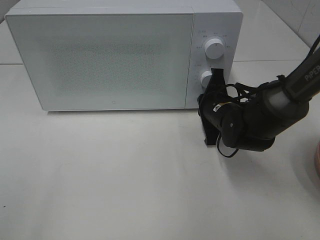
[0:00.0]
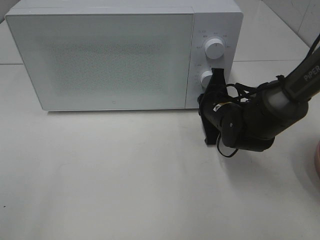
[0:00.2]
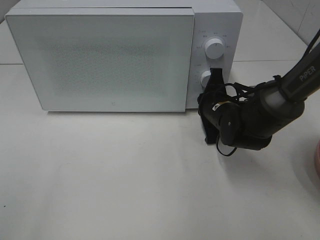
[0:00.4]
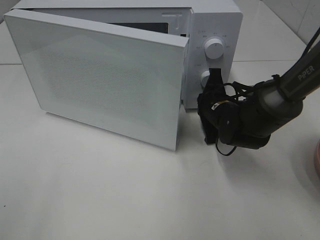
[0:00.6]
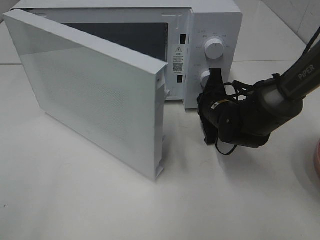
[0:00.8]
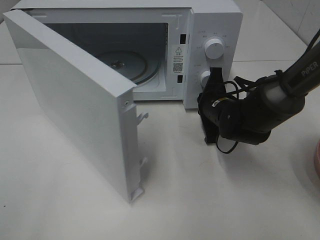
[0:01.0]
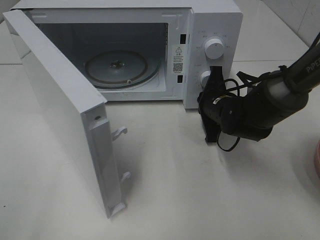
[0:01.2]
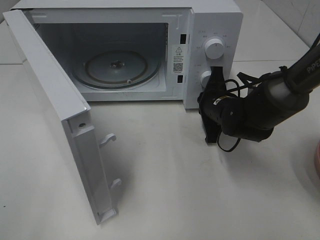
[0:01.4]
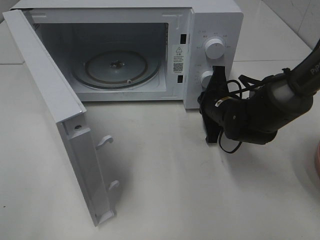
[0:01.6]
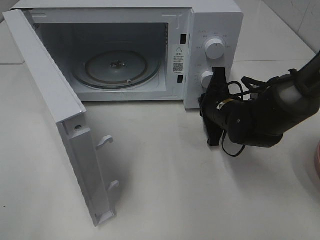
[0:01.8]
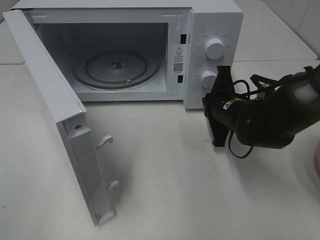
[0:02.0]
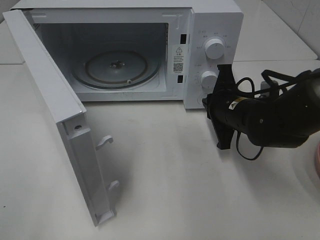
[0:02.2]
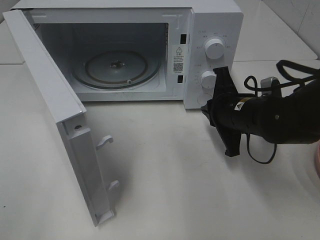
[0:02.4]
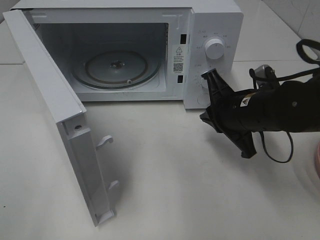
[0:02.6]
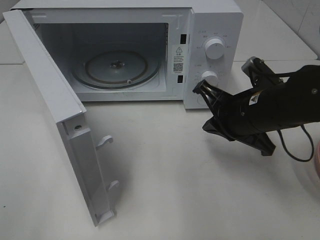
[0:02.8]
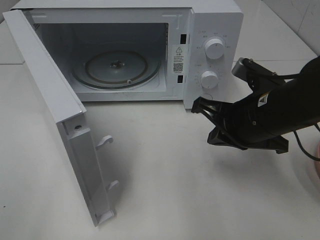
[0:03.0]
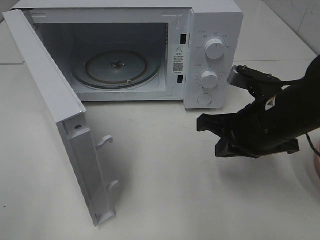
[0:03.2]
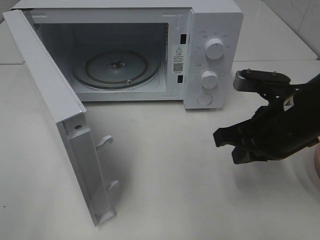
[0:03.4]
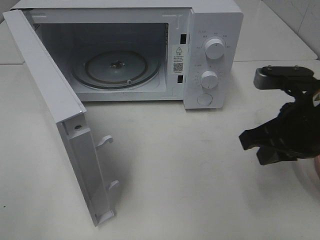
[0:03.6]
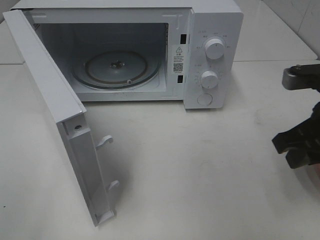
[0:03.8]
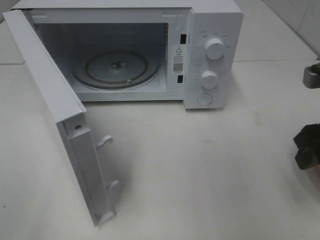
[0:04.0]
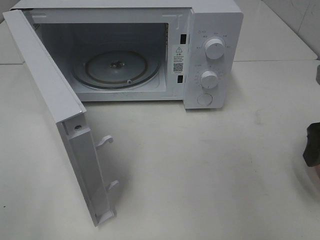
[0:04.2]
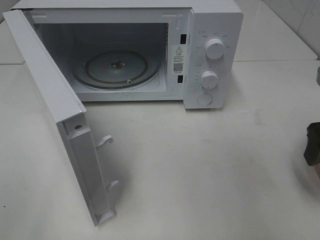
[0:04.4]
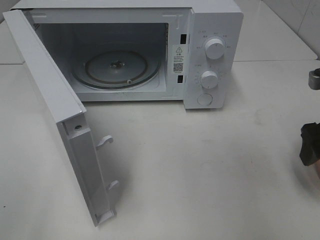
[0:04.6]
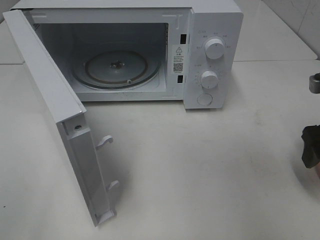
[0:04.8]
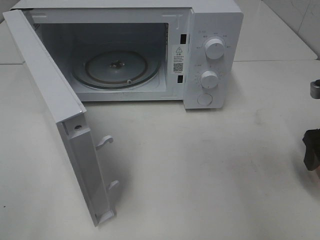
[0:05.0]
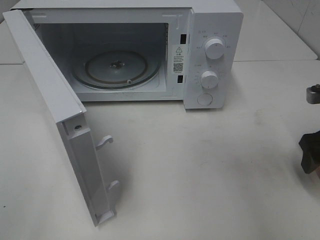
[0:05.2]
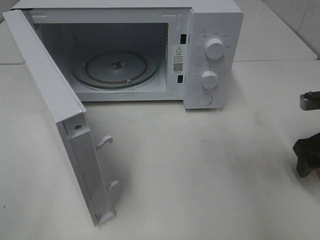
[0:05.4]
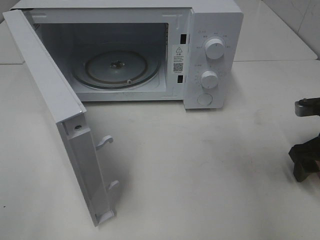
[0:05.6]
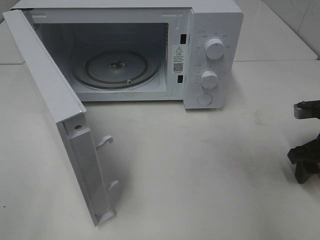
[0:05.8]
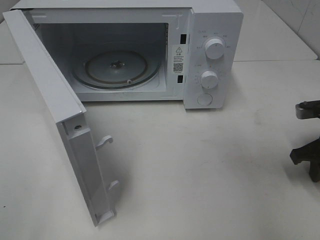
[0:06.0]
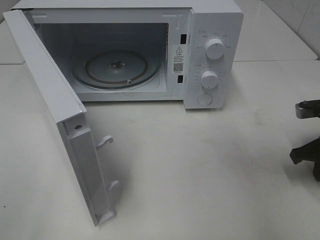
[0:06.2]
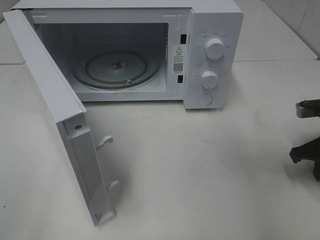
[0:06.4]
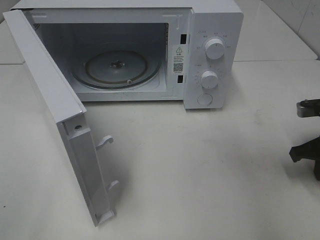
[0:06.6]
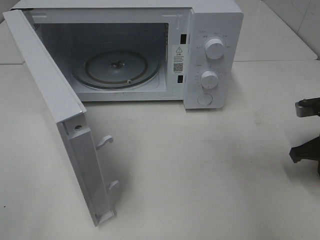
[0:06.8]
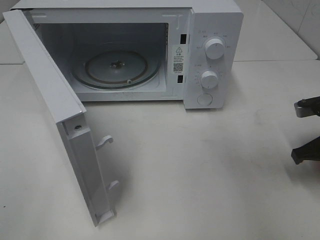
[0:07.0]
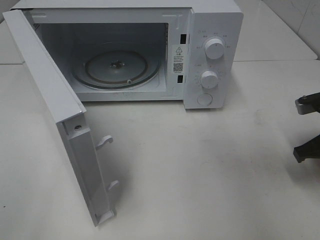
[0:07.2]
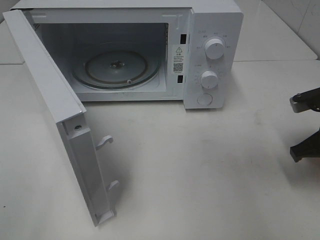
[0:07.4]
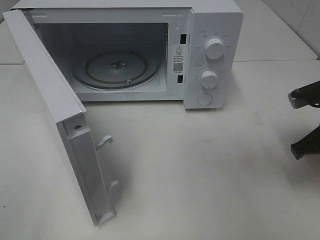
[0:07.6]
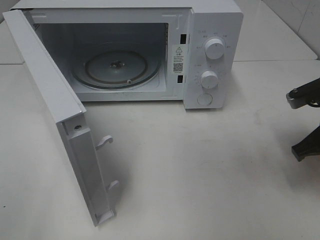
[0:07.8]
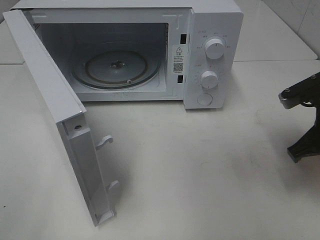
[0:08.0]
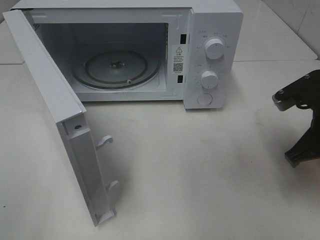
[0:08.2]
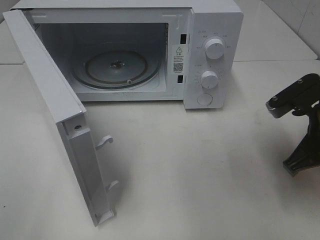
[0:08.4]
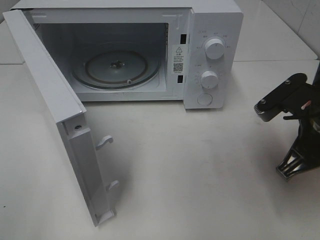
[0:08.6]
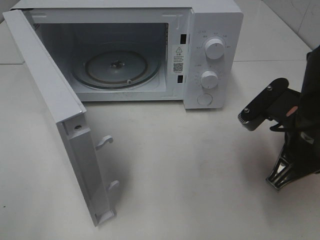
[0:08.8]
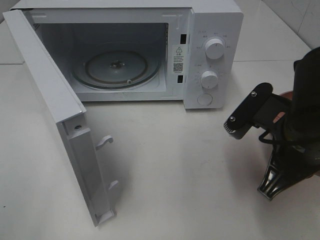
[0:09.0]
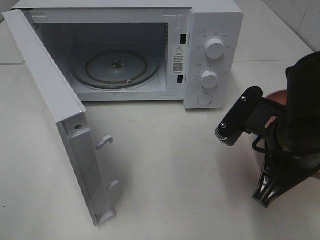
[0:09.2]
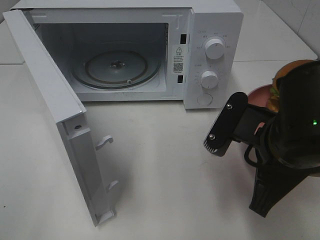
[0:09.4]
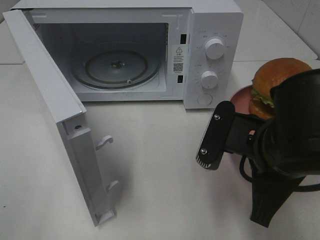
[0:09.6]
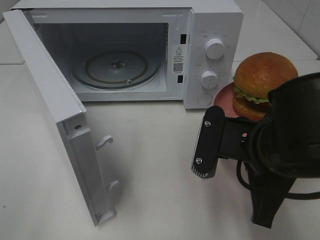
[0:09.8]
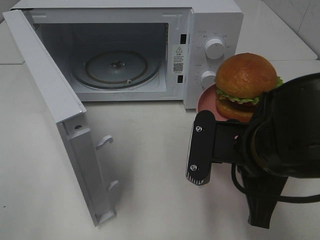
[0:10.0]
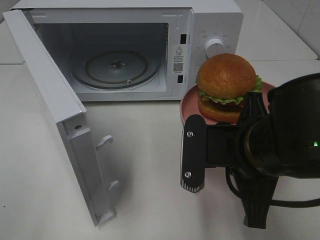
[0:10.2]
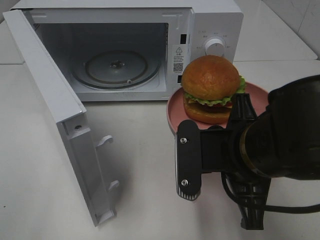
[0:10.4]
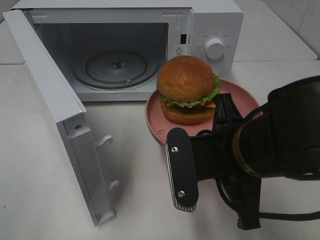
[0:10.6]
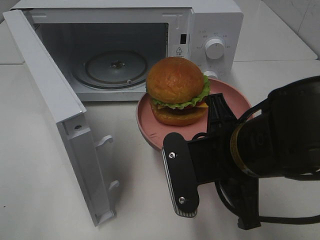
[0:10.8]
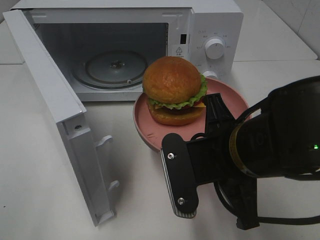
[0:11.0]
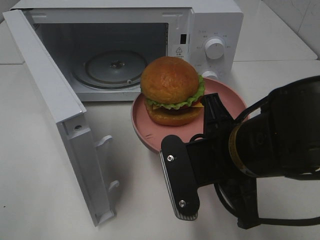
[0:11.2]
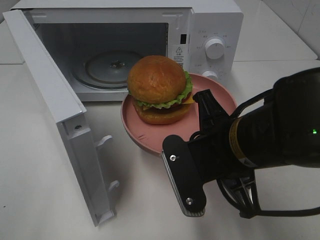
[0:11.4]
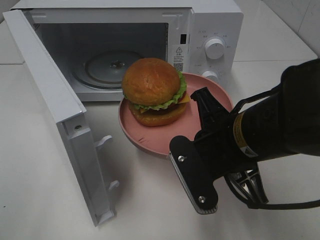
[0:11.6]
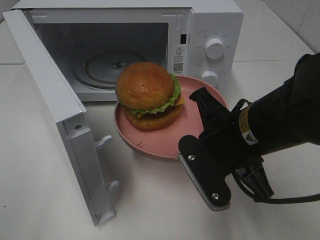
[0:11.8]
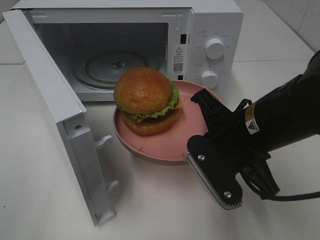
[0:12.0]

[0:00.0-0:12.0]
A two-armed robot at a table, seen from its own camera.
Task of the whole recording: Heat the burger.
Step, 0:00.0 to 0:02.0: Right hand: press the switch.
Step, 0:02.2 to 0:07.2: Right hand: grab the plate with the hamburger.
0:01.6 to 0:03.0: The right gripper shifts some 15 cm backward and upward.
0:03.0 to 0:04.4: The right gripper travels to the right by about 15 cm, and opens its fingers.
0:04.4 to 0:06.0: The right gripper is displaced downward and forward by approximately 10 cm, and closes its fingers.
0:06.0 to 0:07.6: The right gripper moves some 5 cm.
0:07.6 to 0:09.0: The right gripper moves to the left and backward, approximately 15 cm.
0:09.0 to 0:10.4: The right gripper travels to the left by roughly 5 cm.

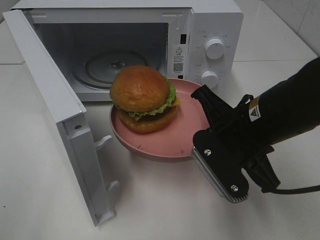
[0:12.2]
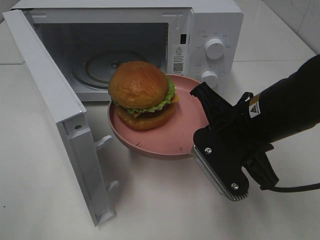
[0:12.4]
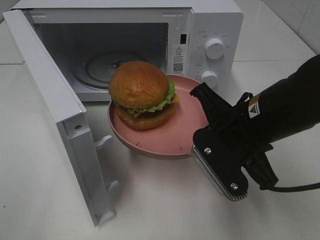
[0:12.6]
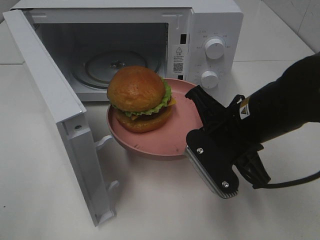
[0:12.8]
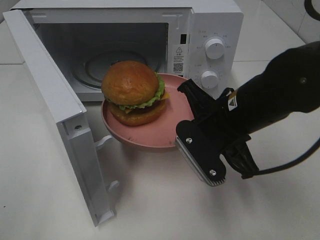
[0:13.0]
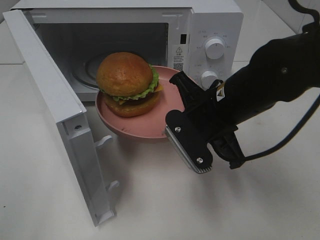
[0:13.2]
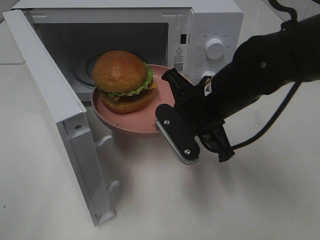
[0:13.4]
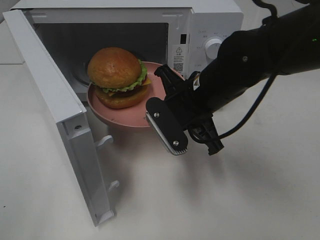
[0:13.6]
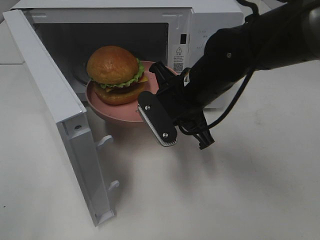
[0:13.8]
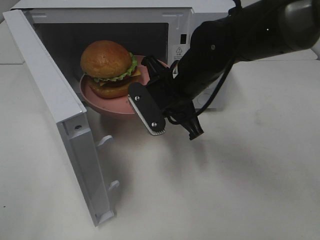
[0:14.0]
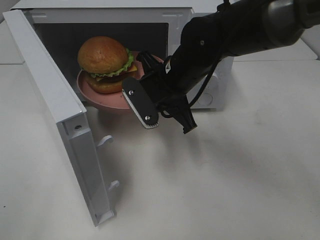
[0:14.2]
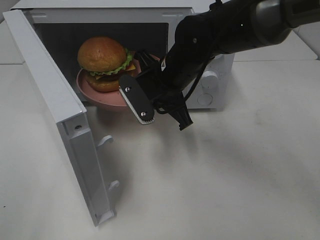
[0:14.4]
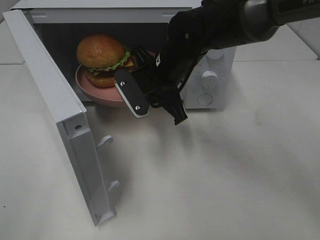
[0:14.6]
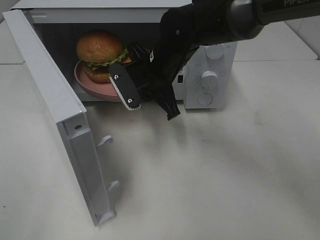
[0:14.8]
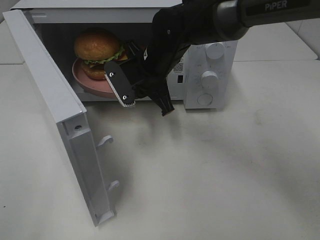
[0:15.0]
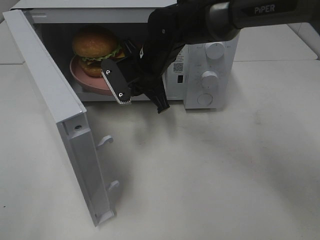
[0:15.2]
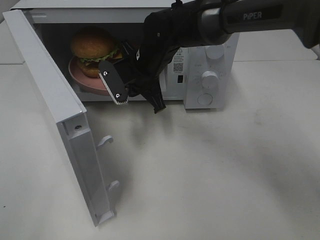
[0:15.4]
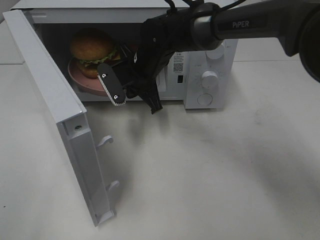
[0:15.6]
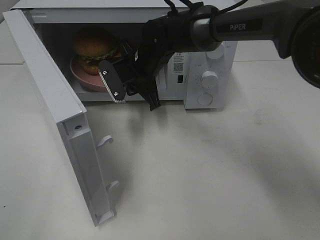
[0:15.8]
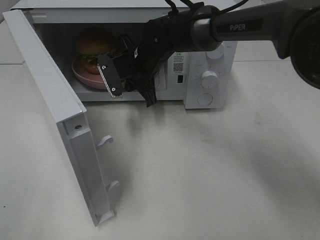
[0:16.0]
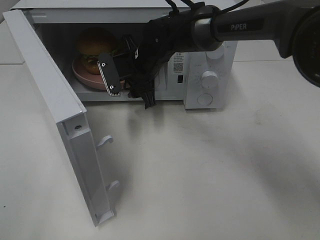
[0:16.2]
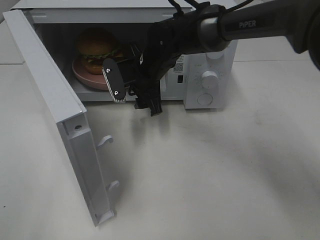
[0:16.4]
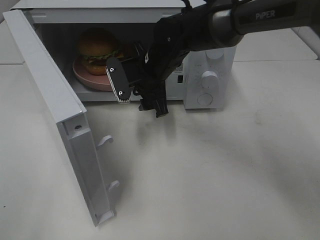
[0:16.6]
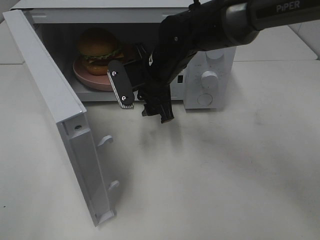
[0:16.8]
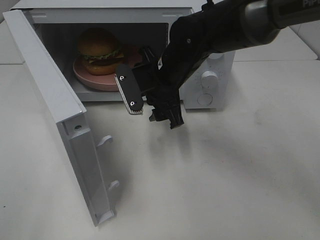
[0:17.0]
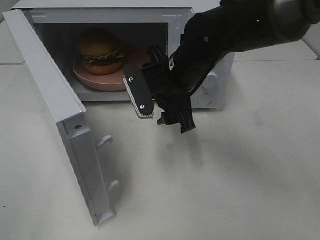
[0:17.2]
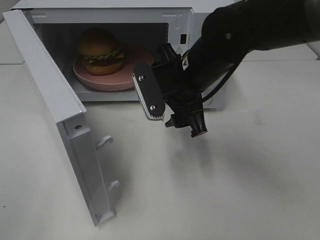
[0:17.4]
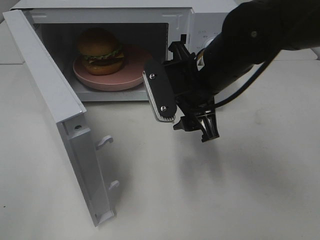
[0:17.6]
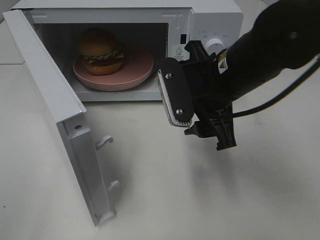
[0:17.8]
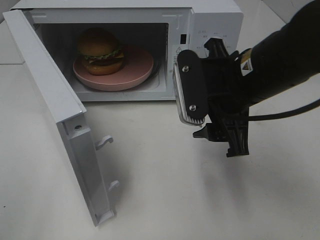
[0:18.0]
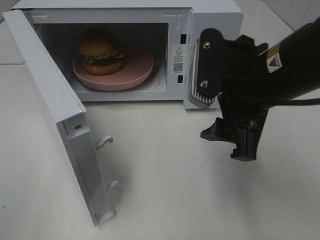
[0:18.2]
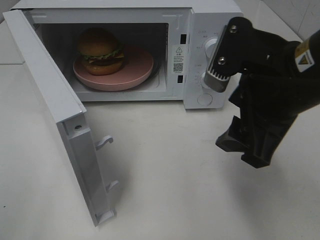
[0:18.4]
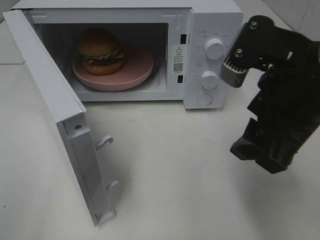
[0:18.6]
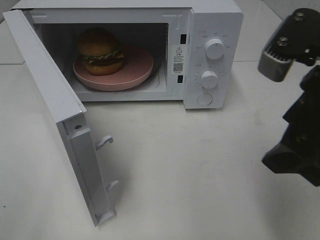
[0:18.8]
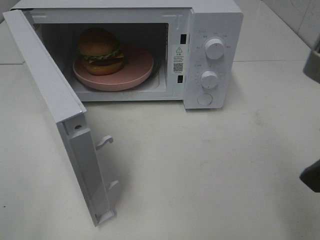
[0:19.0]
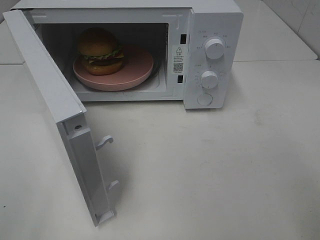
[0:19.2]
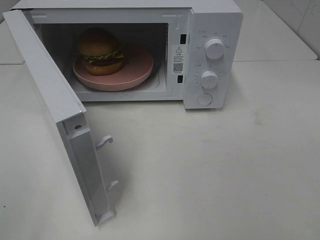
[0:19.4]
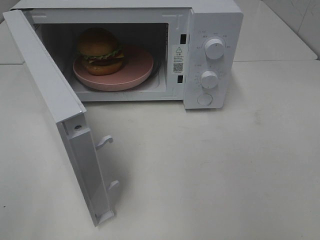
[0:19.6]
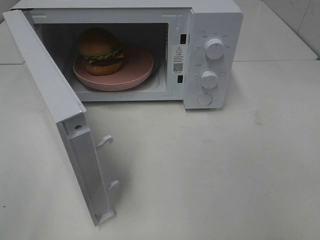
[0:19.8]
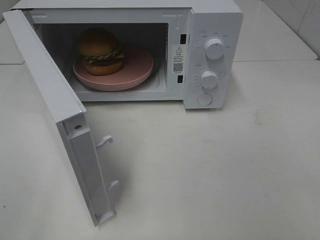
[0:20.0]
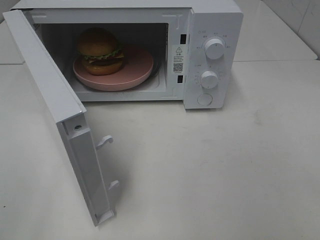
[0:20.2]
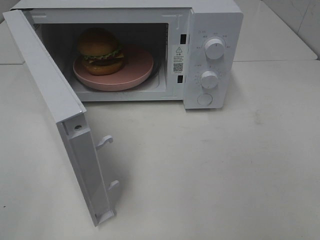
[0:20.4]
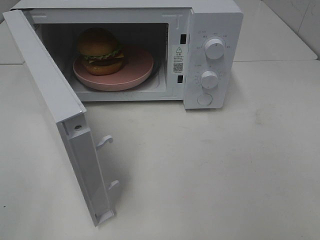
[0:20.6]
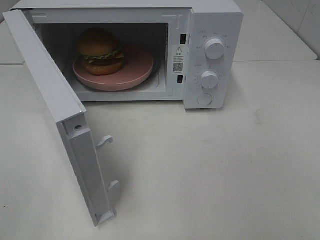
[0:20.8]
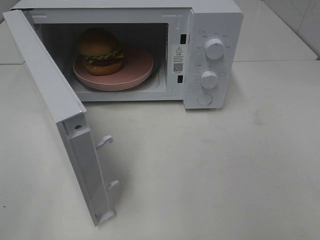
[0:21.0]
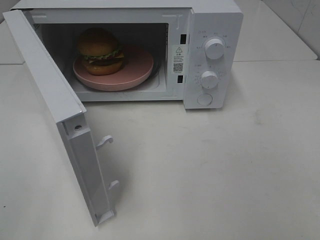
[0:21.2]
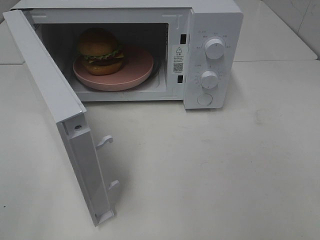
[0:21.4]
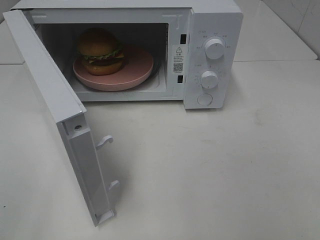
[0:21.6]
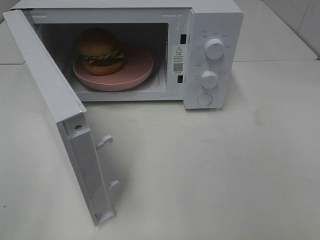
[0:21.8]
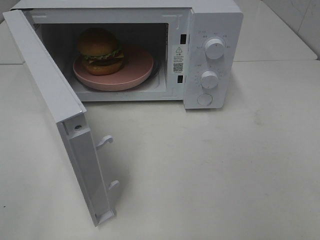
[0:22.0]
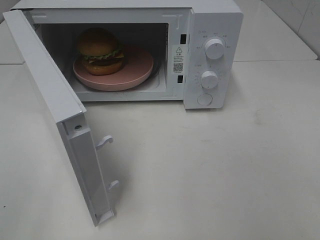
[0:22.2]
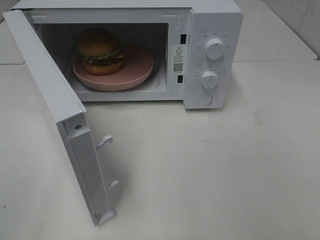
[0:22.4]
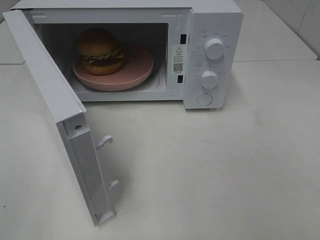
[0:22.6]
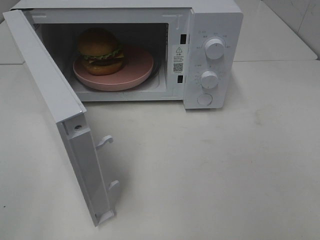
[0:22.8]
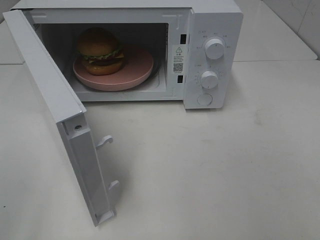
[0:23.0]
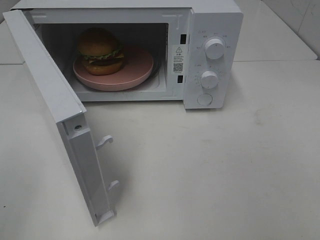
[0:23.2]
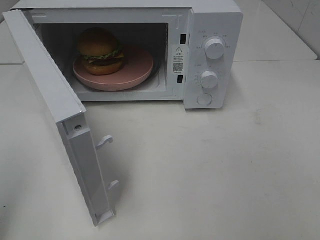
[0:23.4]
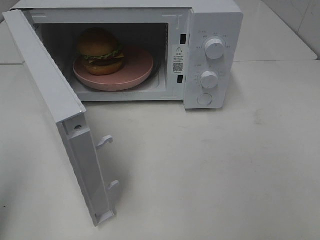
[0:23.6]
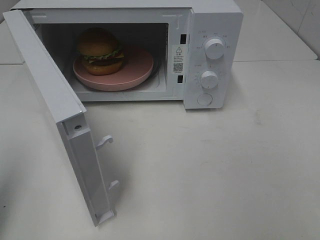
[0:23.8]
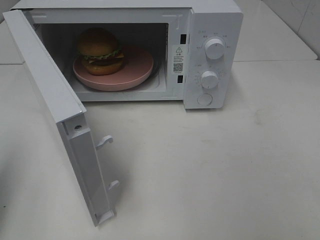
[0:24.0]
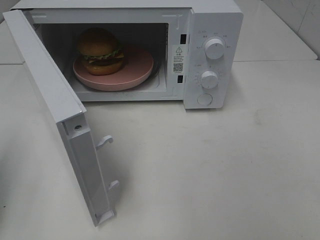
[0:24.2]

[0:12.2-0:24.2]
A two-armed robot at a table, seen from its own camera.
Task of the whole recording: Heat the burger.
Step, 0:12.2 to 0:16.2: Right hand: place the plate in the microwave.
0:12.2 to 0:13.8: The right gripper goes roughly 10 cm forward and to the left.
0:13.8 to 0:15.2: The right gripper shifts approximately 10 cm forward and to the left.
0:15.2 to 0:16.6: The right gripper opens.
0:16.6 to 0:18.2: The right gripper is displaced backward, to the right and upward by about 25 cm.
0:18.2 to 0:19.8: The right gripper is displaced backward and to the right by about 25 cm.
0:21.2 to 0:22.6: The two grippers keep their place.
0:22.6 to 0:24.2: The left gripper goes approximately 15 cm forward, and closes up.
